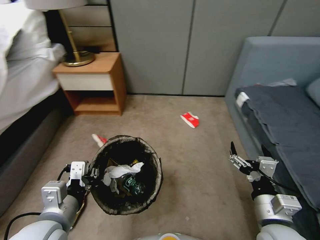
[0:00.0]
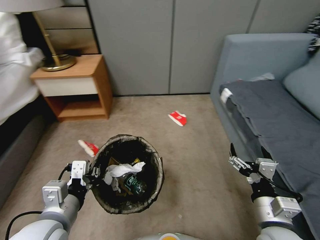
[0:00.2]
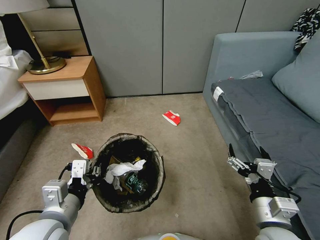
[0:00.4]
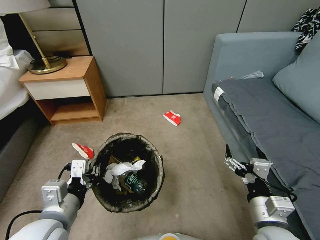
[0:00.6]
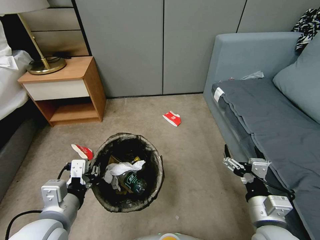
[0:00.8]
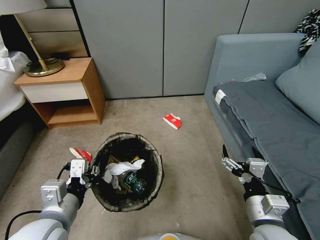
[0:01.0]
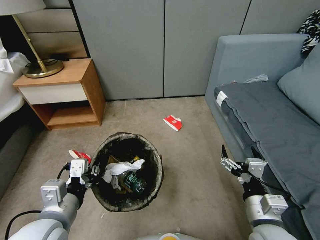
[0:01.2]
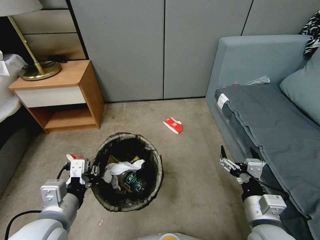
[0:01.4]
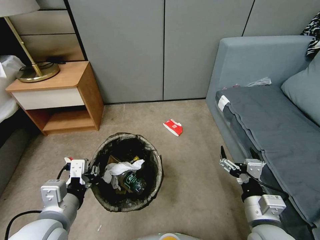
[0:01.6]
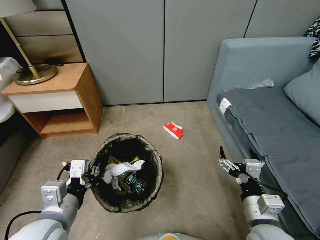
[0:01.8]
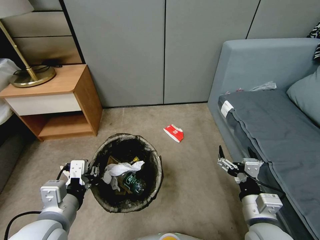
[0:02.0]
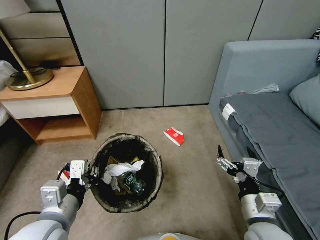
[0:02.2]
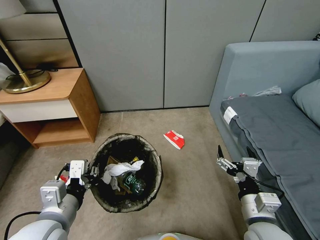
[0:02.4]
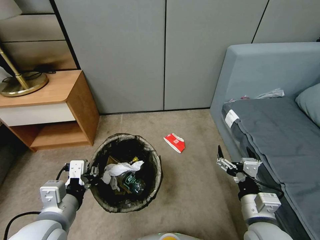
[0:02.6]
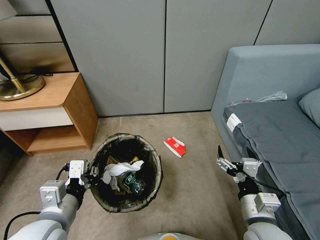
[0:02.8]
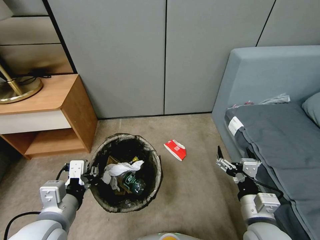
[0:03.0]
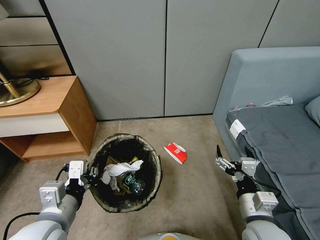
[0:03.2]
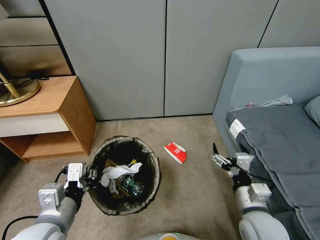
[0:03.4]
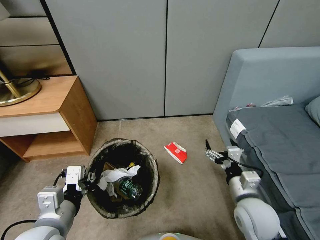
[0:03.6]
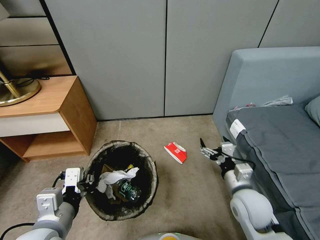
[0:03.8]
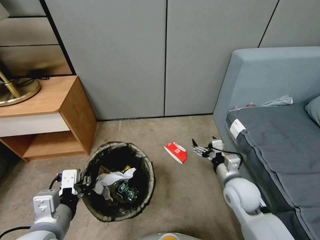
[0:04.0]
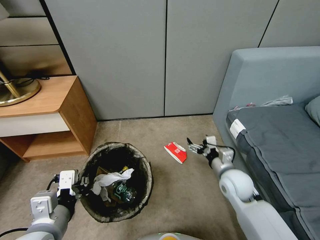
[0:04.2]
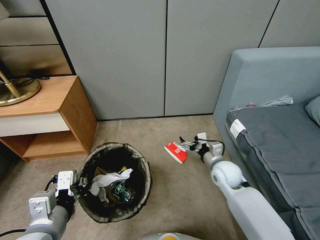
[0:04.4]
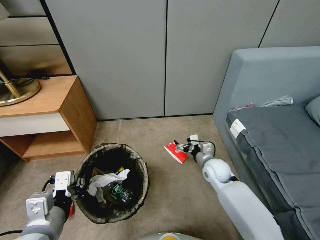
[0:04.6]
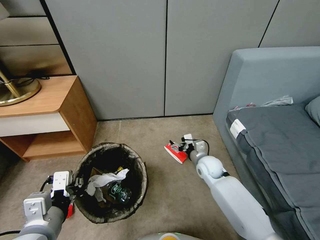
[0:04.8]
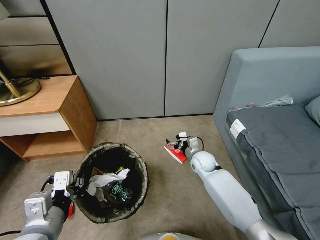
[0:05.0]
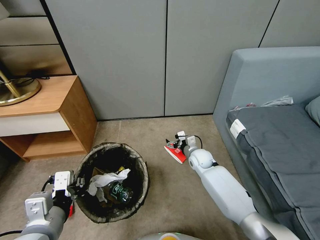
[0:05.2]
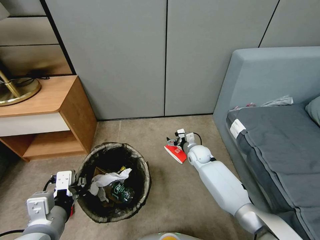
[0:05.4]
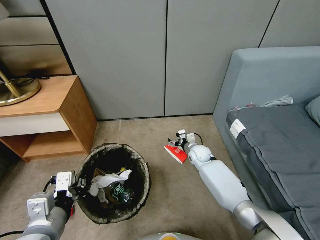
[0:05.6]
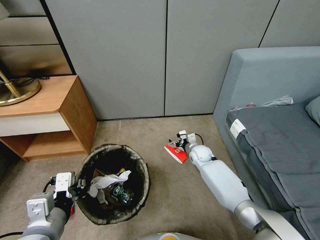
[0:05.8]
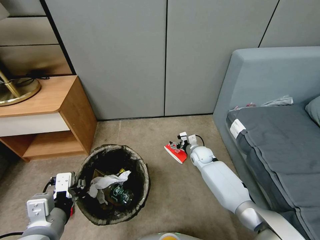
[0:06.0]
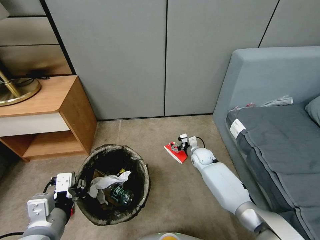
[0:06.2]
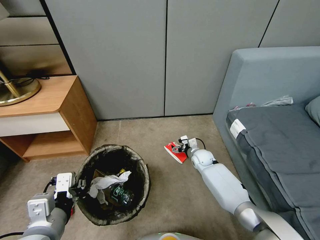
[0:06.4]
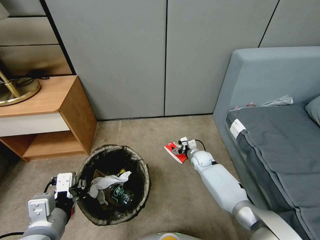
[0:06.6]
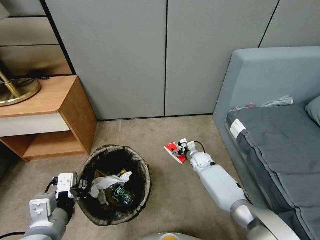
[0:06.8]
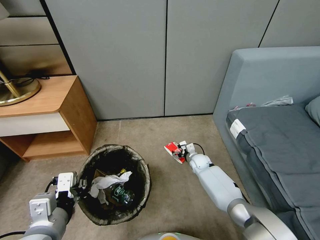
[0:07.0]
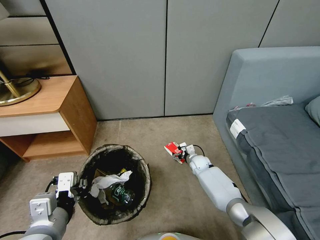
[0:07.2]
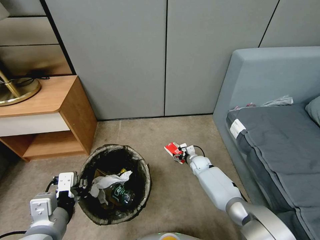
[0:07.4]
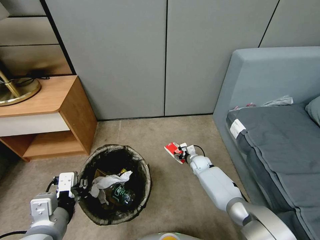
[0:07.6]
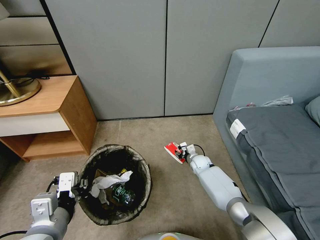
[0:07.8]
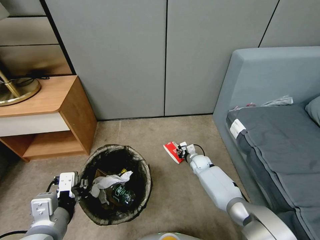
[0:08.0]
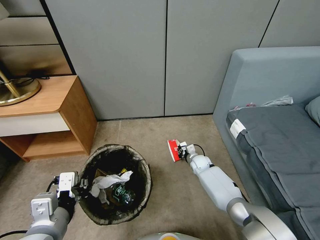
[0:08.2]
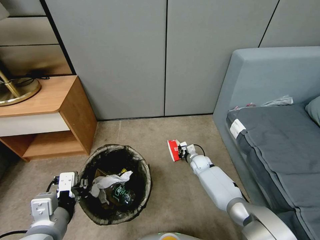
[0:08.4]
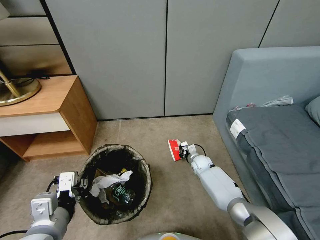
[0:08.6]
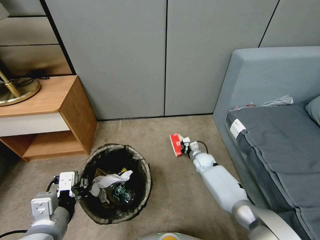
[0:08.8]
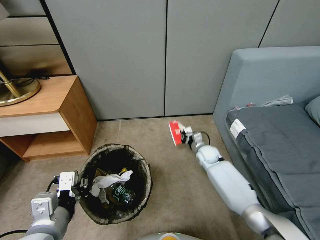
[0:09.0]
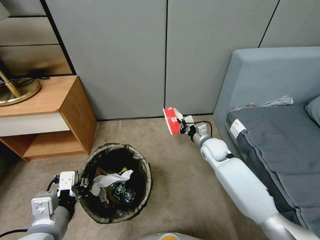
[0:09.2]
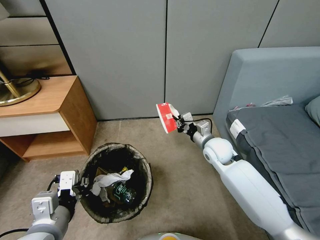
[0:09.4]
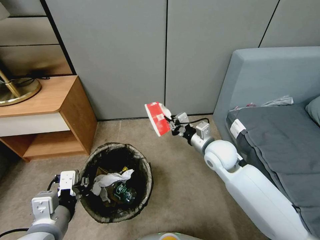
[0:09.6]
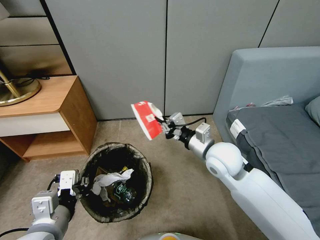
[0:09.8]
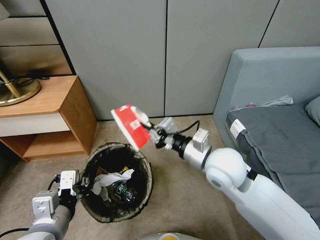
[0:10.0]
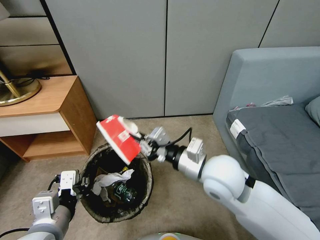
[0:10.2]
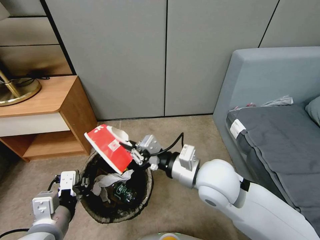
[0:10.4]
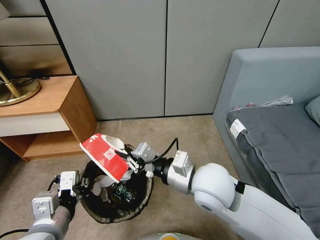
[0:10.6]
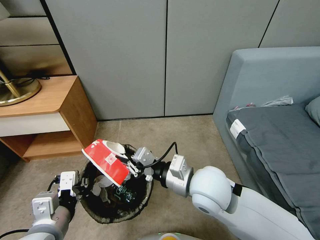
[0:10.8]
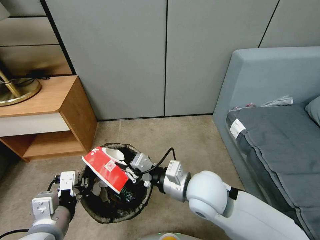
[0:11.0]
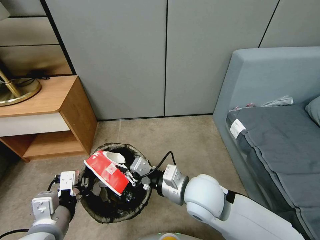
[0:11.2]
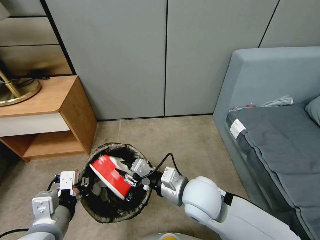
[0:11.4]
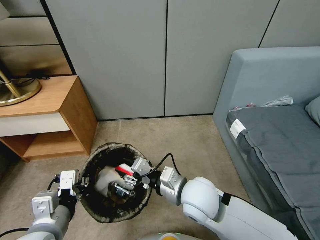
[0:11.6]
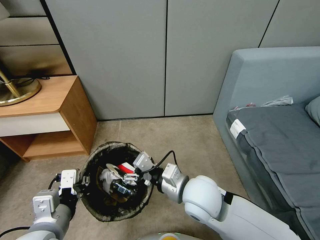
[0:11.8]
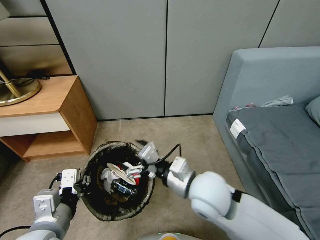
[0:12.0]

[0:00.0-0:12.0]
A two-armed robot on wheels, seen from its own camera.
Task of the whole recording: Pick up the trash bin, then pick up the garbage from the floor and place it into the trash bin.
0:03.0 to 0:04.4: The right gripper goes roughly 20 cm forward.
0:04.4 to 0:06.0: The right gripper moves forward and downward, approximately 15 cm.
0:06.0 to 0:07.6: The right gripper moves downward, about 5 cm.
0:07.6 to 0:09.0: The right gripper shifts some 10 cm upward, and closes its fingers.
0:09.0 to 0:10.4: The right gripper travels upward and backward by about 35 cm.
0:10.4 to 0:12.0: The right gripper opens its fingers.

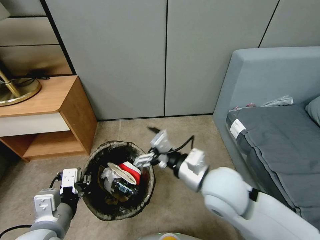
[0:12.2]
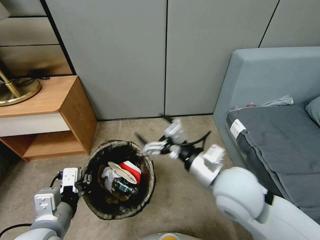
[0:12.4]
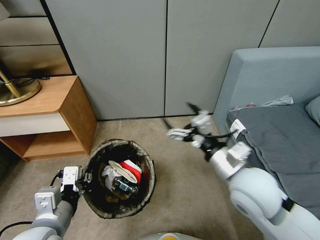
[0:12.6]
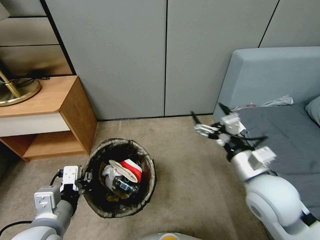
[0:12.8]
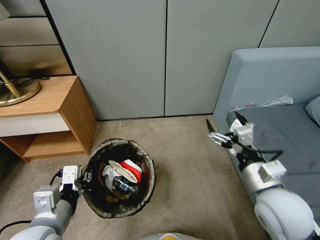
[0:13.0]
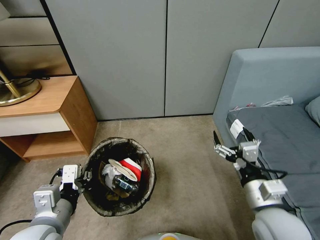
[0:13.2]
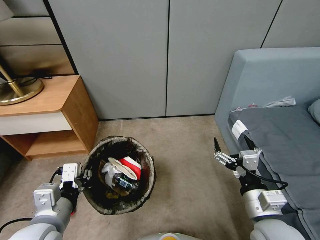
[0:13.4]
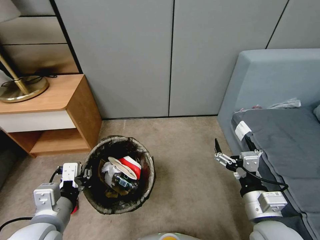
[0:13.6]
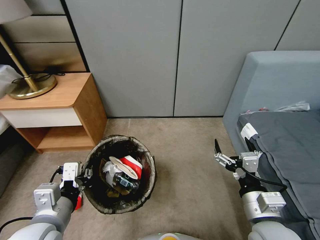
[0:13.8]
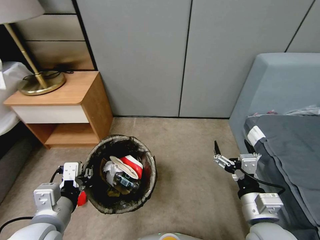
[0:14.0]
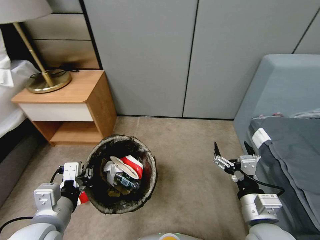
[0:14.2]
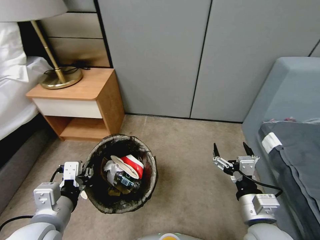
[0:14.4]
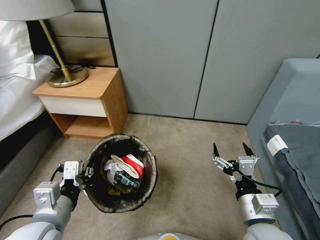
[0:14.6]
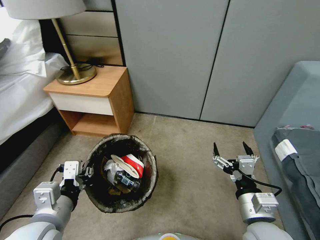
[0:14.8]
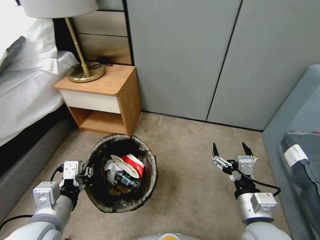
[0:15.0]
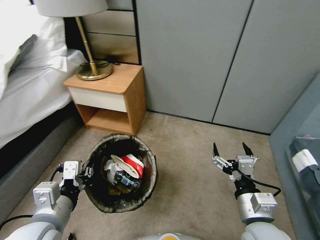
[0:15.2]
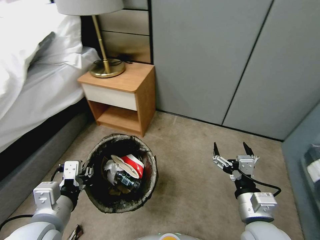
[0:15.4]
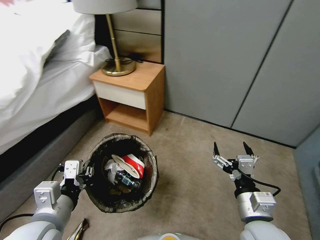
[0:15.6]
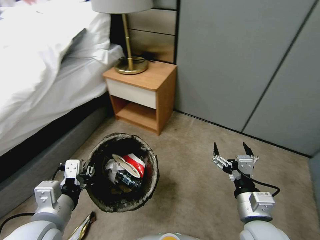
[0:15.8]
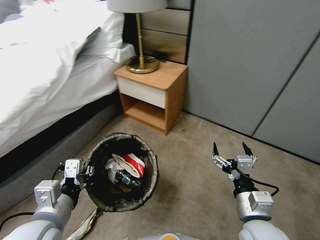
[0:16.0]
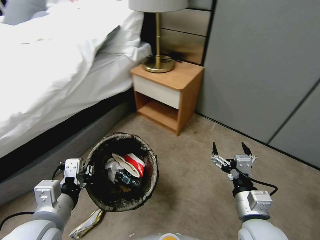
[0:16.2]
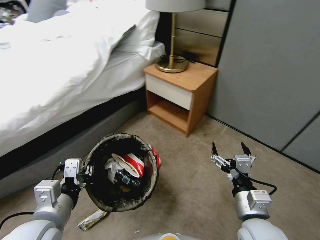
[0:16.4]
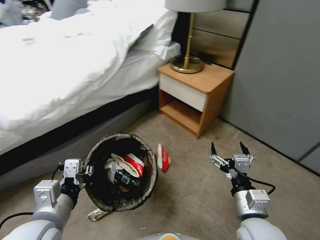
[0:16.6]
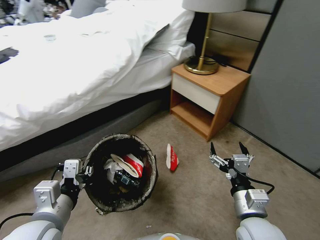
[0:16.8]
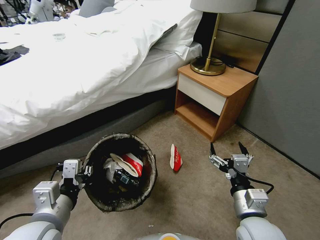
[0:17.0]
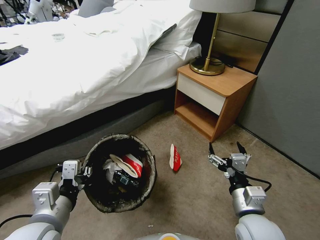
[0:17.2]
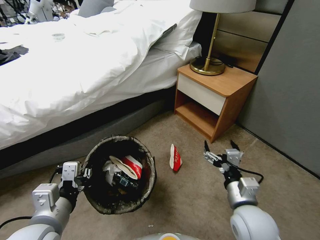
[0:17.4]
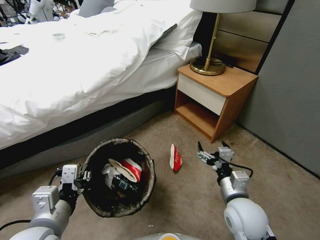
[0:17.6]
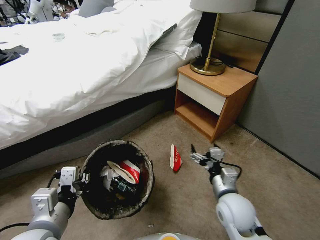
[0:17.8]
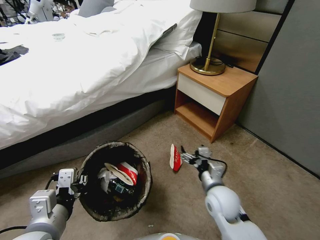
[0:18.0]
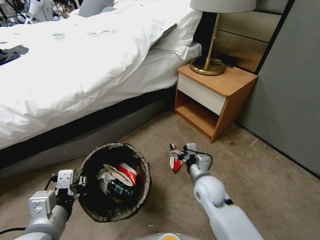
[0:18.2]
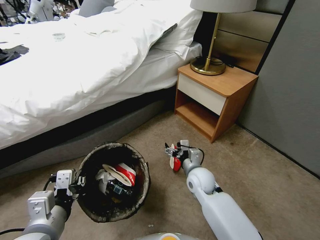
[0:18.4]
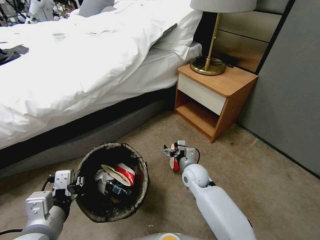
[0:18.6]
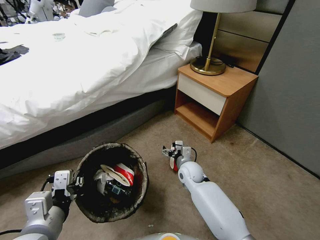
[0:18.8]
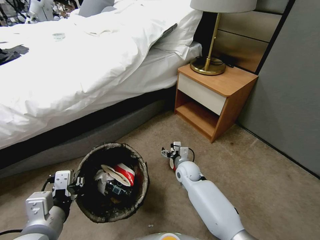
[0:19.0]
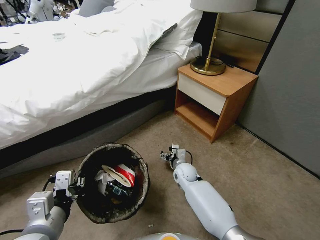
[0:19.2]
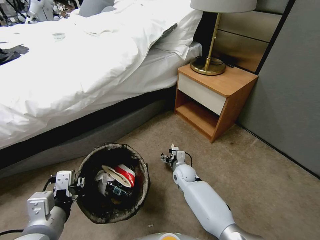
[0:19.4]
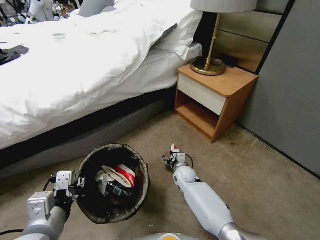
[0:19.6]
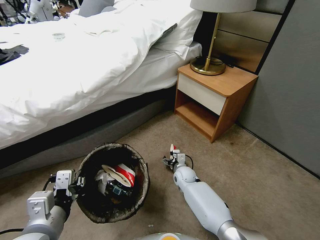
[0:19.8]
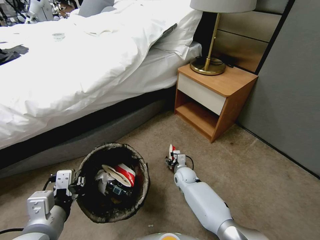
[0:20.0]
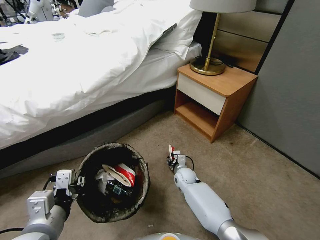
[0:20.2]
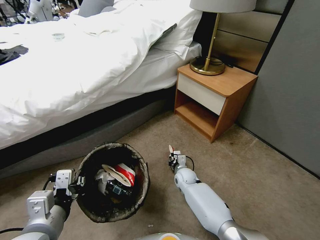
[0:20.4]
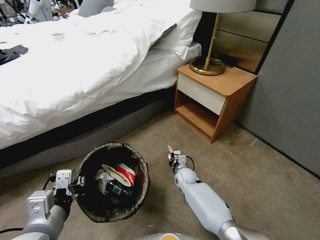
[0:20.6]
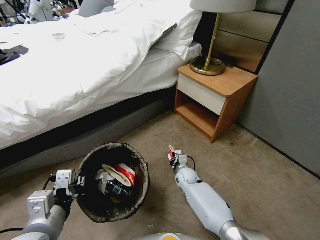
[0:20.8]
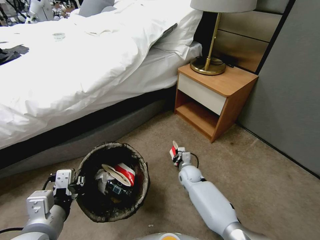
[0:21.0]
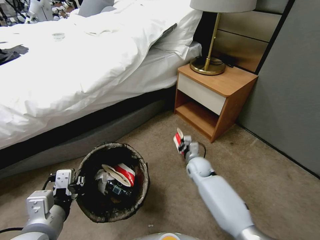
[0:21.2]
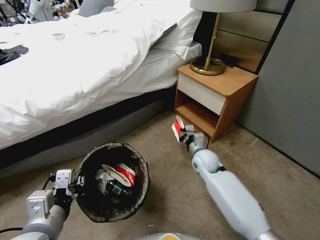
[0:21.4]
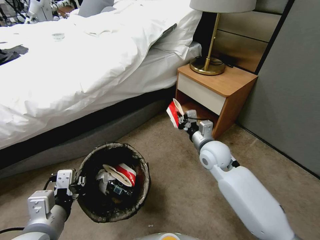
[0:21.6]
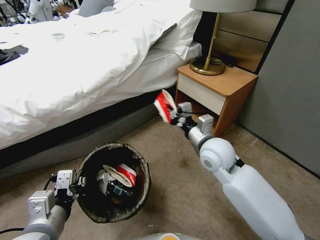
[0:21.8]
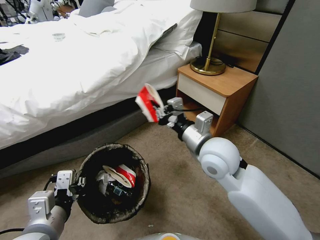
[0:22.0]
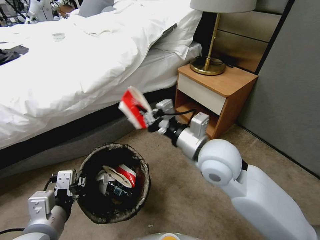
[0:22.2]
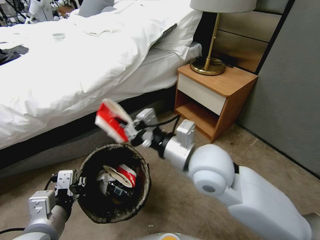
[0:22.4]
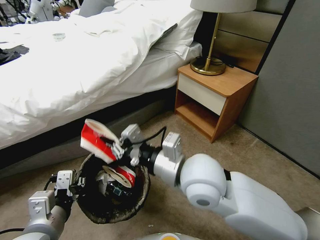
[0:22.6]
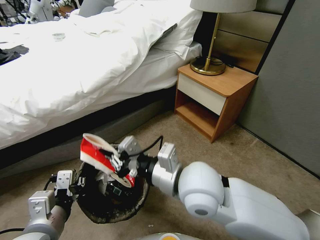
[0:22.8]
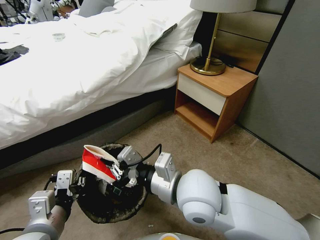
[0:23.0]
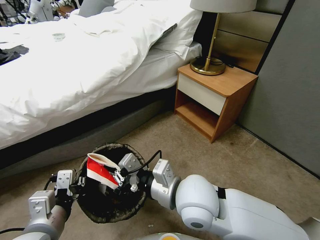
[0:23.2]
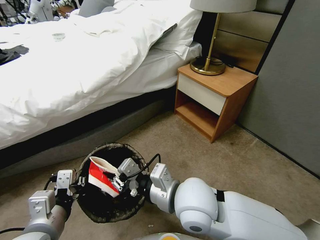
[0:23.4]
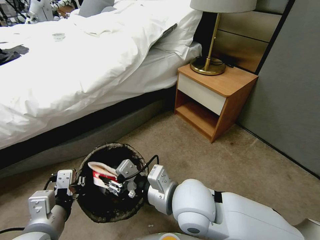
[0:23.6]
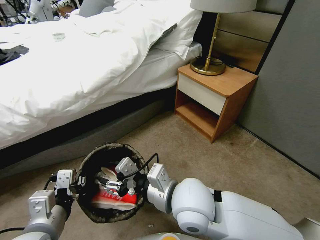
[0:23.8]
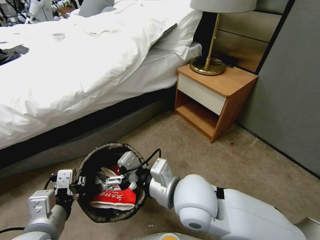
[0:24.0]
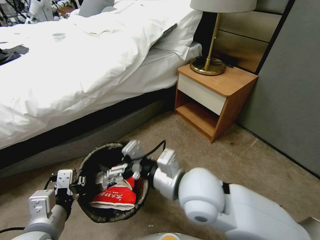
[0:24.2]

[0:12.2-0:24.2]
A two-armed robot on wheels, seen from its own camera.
Task of the whole recording: Pick up the trash bin, then pick up the garbage from the floor and place it into the trash bin.
0:12.2 to 0:13.8: The right gripper travels to the right, backward and downward by roughly 15 cm.
0:16.6 to 0:18.2: The right gripper shifts roughly 20 cm forward, downward and to the left.
0:18.2 to 0:19.8: The right gripper heads downward and forward, covering some 15 cm.
0:19.8 to 0:21.2: The right gripper closes up.
0:21.2 to 0:22.6: The right gripper shifts some 40 cm upward and backward.
0:22.6 to 0:24.2: The right gripper opens its fingers.
